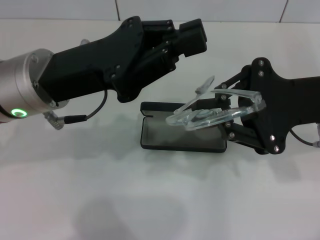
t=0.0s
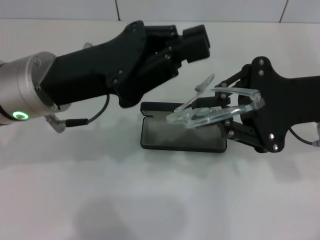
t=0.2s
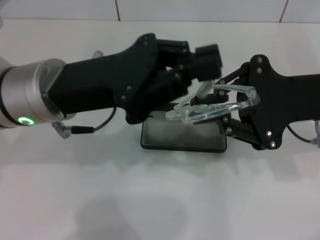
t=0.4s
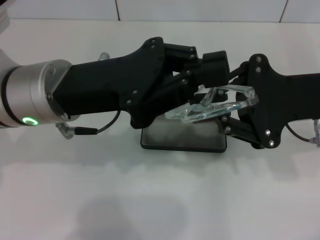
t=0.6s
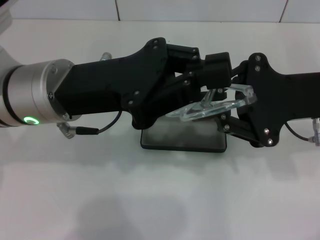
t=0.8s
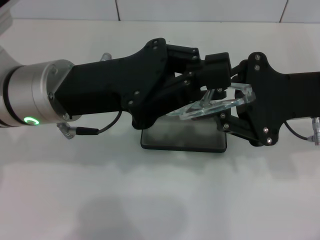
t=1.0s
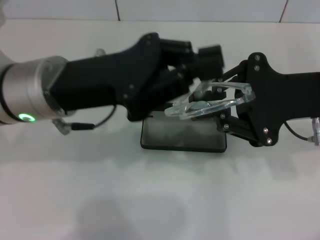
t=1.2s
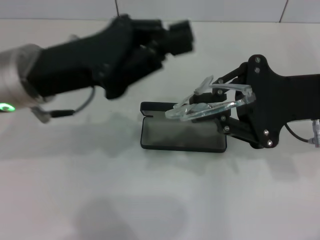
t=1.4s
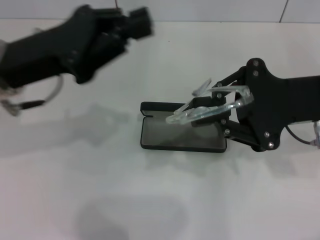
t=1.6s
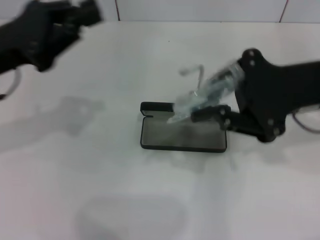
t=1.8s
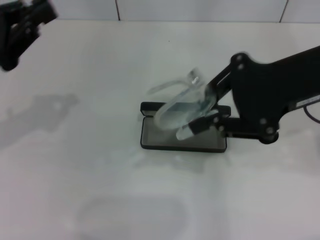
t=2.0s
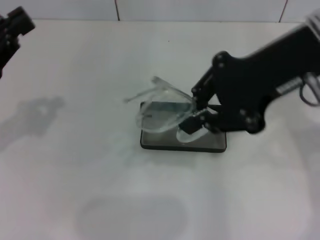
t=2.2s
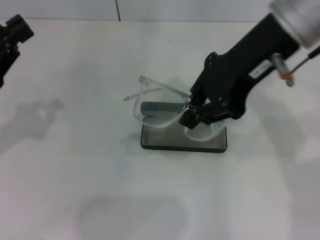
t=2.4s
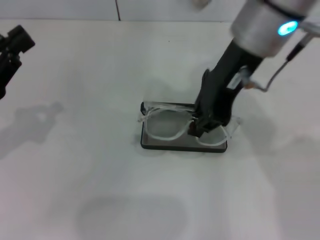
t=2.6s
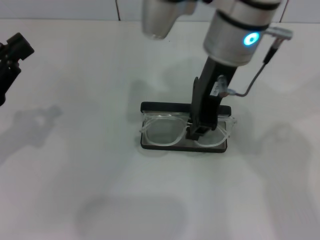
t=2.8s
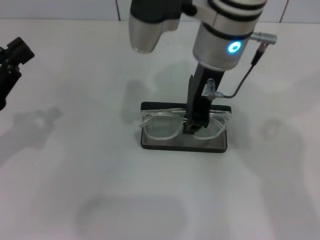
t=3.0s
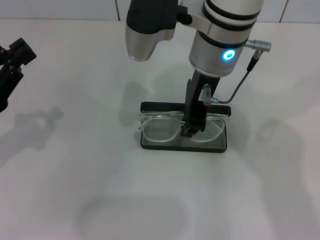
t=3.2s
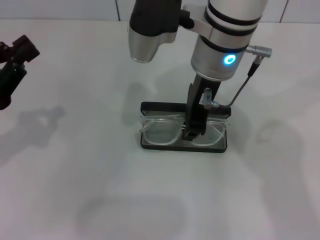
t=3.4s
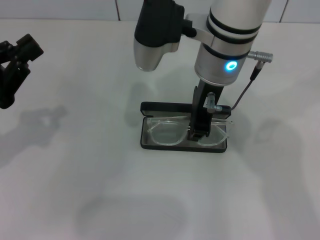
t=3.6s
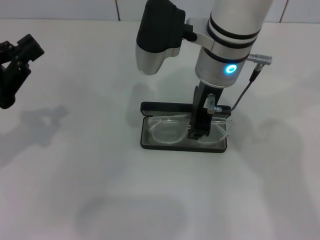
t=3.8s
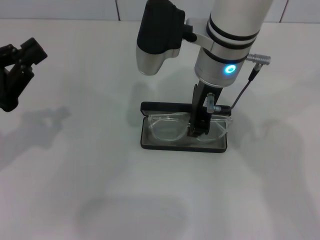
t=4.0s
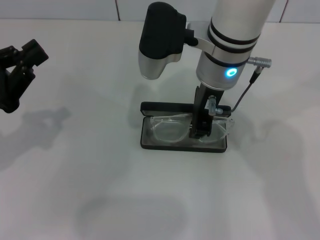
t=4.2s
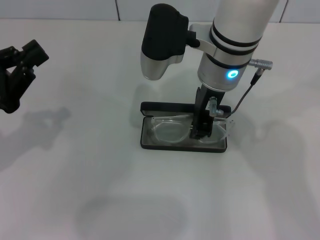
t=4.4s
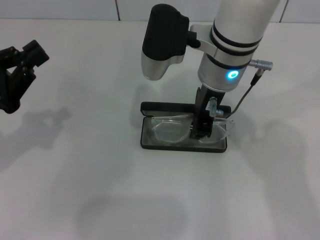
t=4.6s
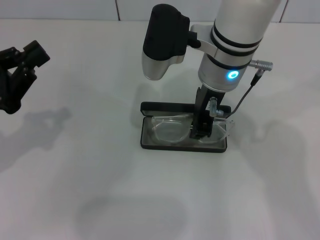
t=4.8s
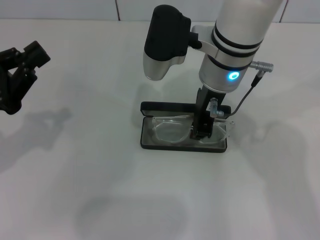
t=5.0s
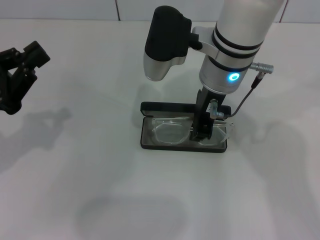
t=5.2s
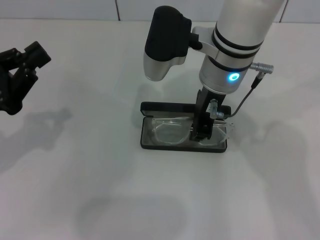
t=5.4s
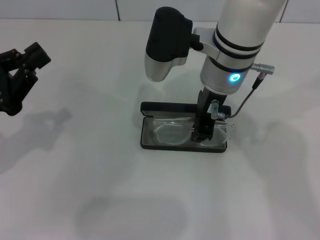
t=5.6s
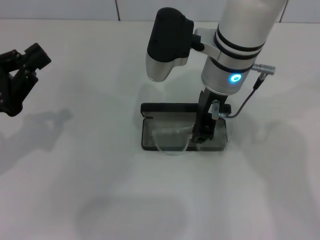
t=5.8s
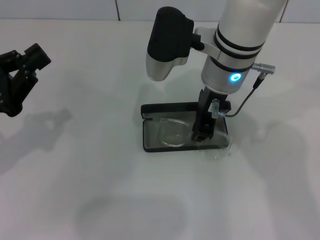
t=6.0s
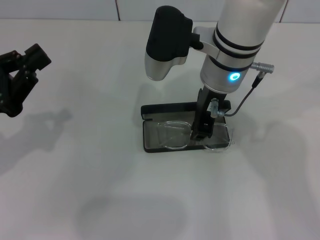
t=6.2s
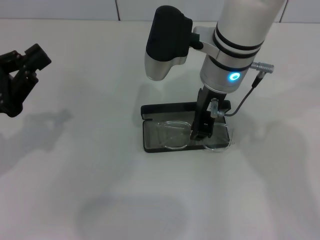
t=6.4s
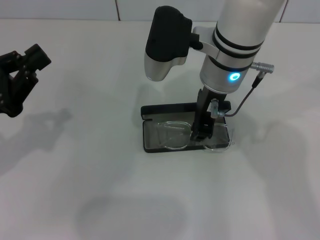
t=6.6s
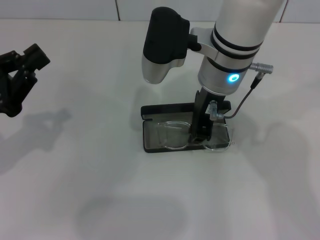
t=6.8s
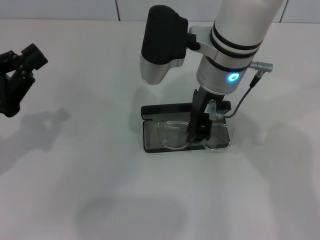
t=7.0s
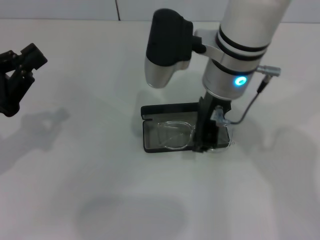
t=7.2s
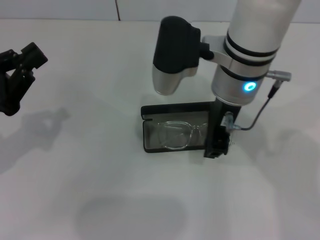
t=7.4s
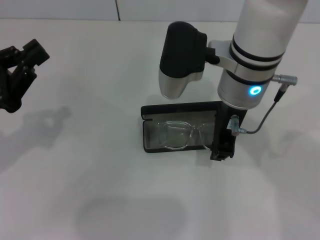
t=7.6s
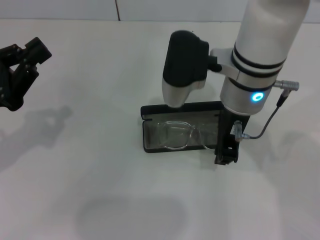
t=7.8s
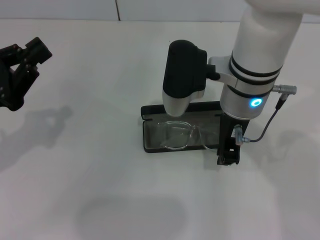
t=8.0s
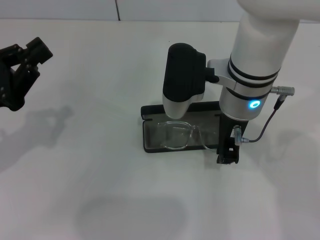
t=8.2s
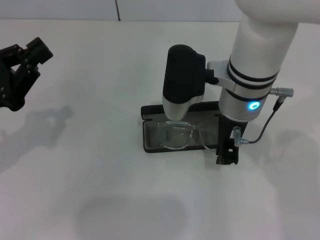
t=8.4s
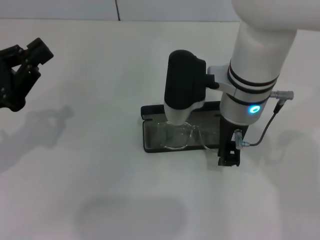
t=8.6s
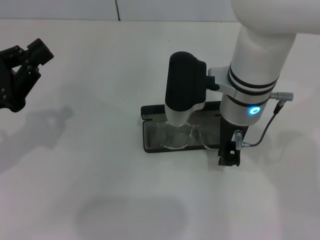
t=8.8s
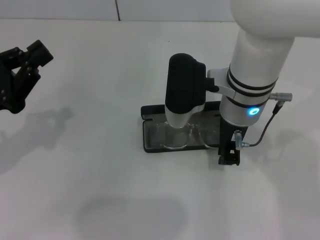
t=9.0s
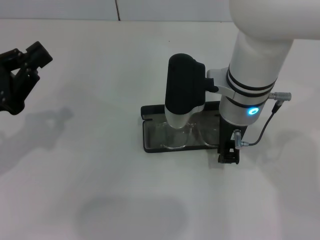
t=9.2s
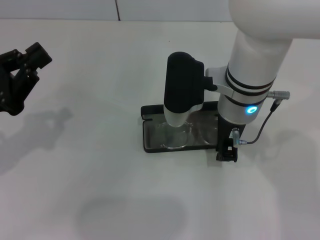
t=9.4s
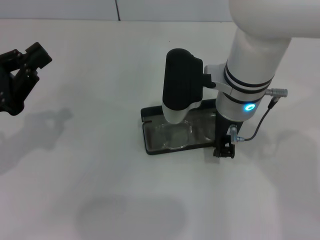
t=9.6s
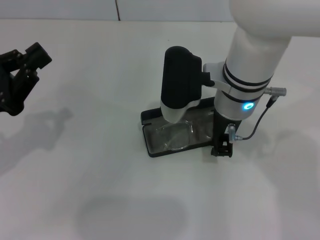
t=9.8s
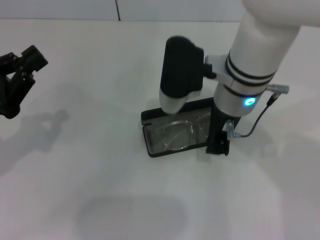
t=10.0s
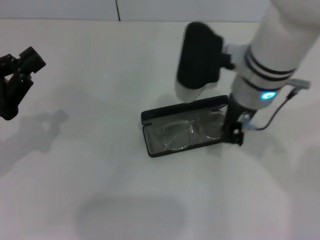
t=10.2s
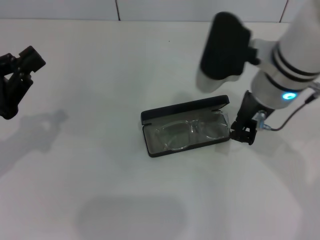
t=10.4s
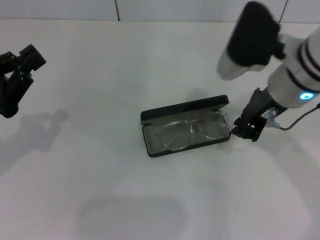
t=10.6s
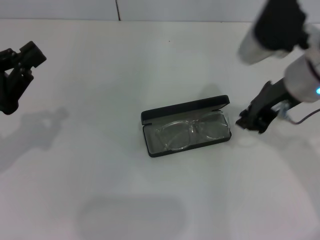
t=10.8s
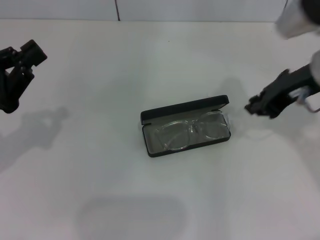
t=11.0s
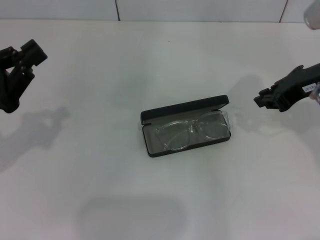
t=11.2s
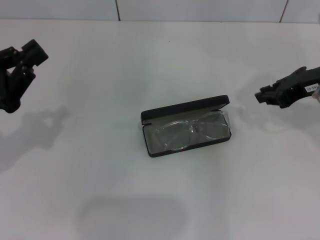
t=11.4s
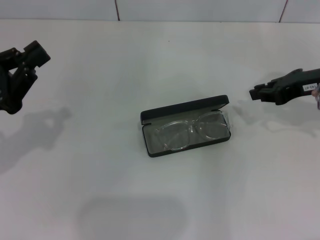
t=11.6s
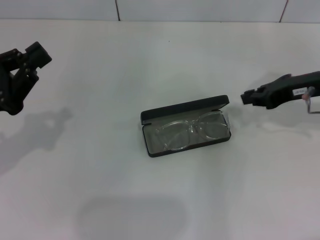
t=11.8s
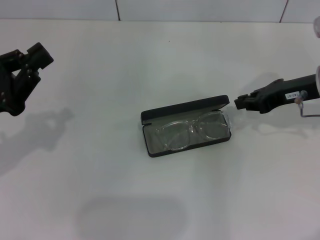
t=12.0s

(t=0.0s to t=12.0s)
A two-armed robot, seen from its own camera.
t=1.6s - t=3.0s: The right gripper goes about 15 cm to the left. The left gripper is displaced to the left, backward and downward by about 15 cm.
t=3.0s - t=4.4s: There are only small adjustments of the grippers.
t=4.4s - t=6.0s: Both grippers stay put.
t=6.0s - t=9.0s: The grippers stay close to where they were, moving slightly.
t=9.0s - t=10.4s: The right gripper moves some 5 cm.
t=10.4s - t=12.0s: The right gripper moves to the right, some 15 cm.

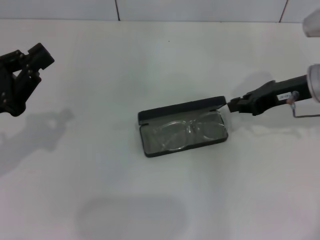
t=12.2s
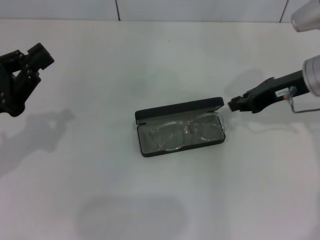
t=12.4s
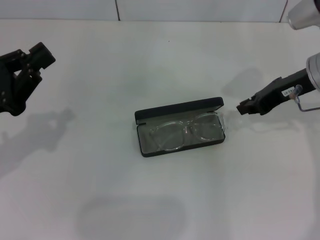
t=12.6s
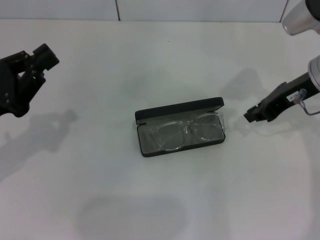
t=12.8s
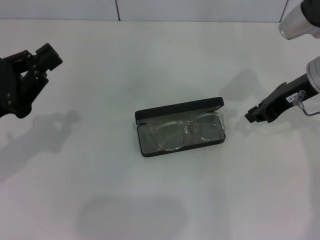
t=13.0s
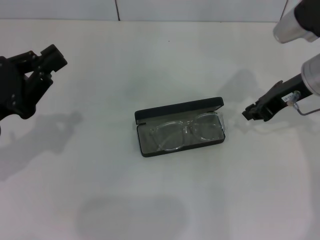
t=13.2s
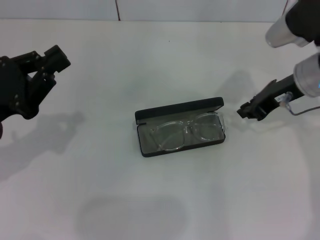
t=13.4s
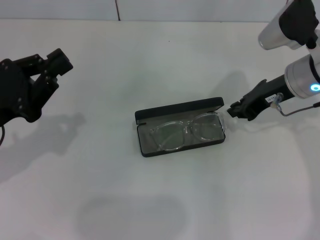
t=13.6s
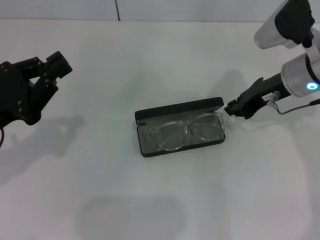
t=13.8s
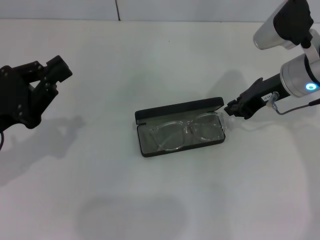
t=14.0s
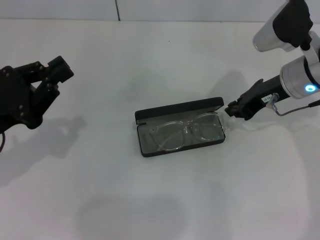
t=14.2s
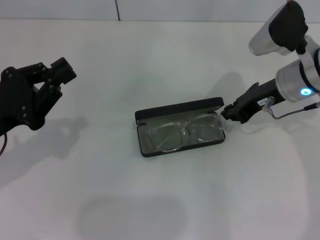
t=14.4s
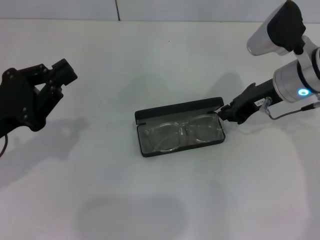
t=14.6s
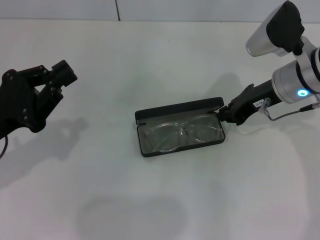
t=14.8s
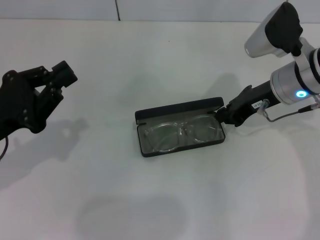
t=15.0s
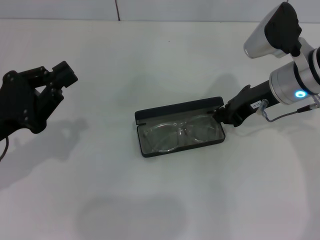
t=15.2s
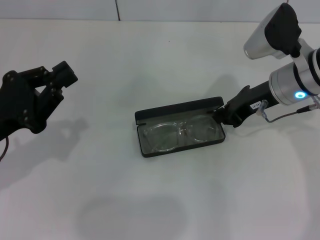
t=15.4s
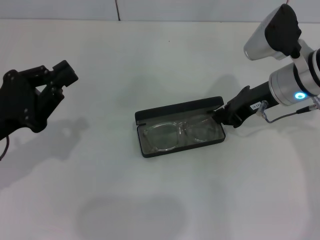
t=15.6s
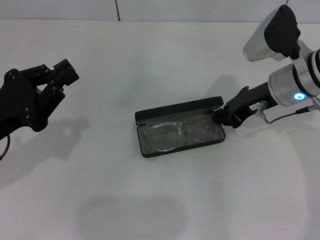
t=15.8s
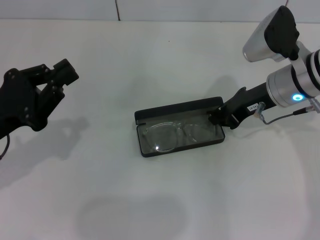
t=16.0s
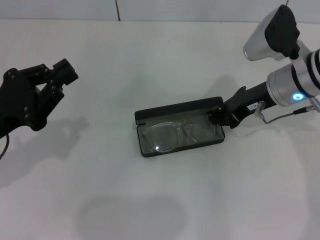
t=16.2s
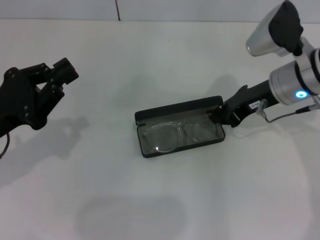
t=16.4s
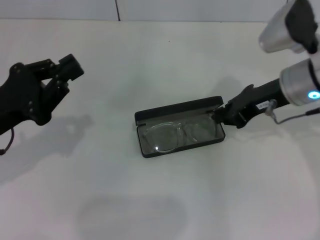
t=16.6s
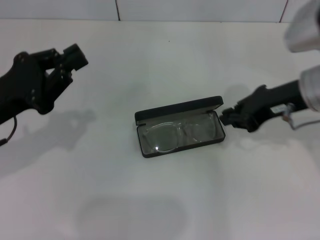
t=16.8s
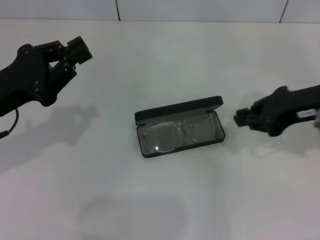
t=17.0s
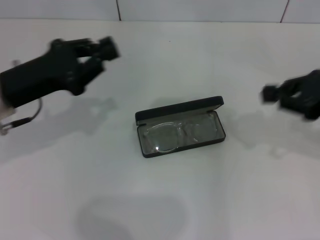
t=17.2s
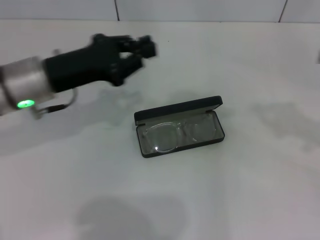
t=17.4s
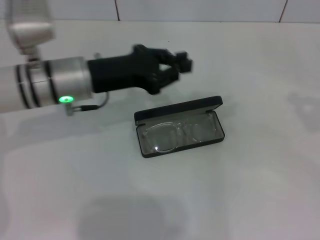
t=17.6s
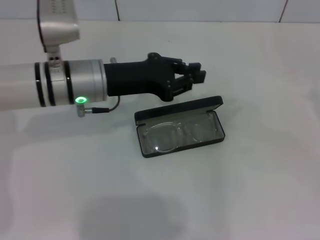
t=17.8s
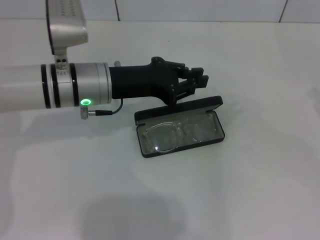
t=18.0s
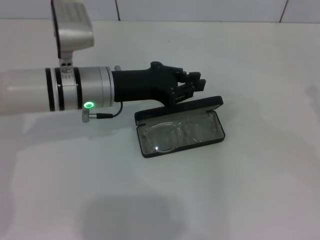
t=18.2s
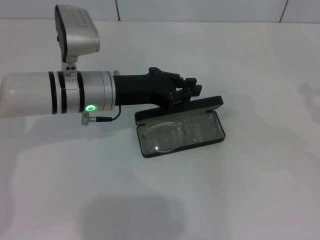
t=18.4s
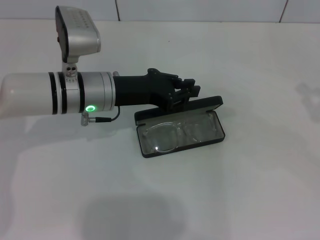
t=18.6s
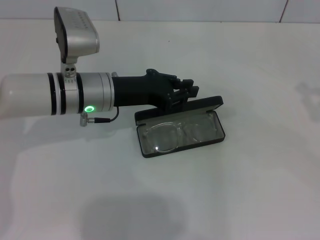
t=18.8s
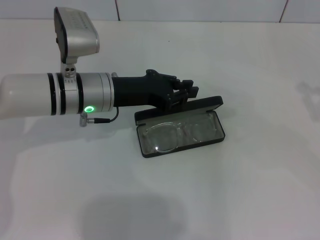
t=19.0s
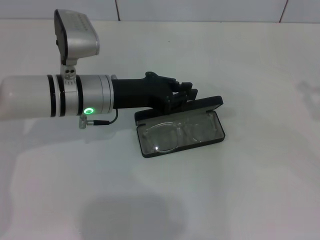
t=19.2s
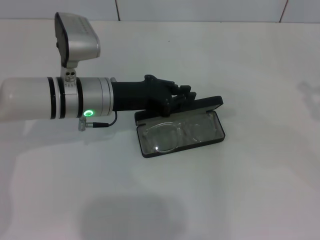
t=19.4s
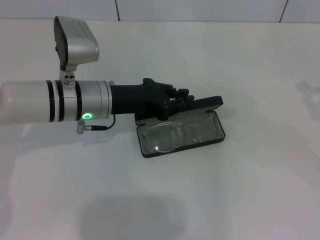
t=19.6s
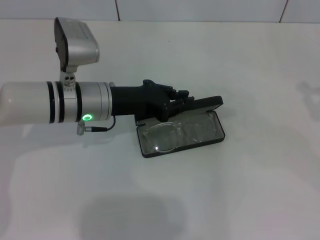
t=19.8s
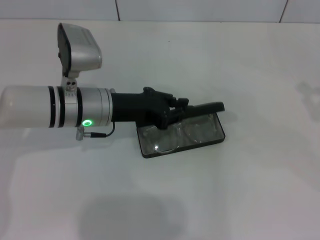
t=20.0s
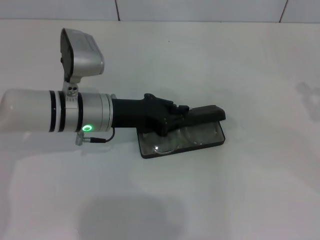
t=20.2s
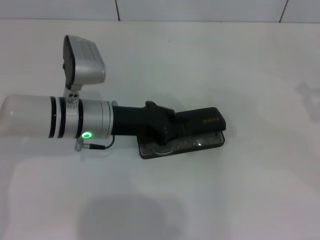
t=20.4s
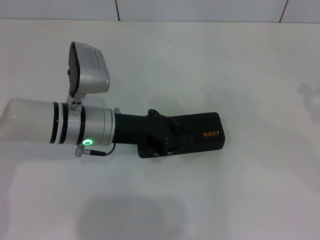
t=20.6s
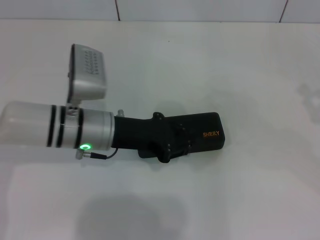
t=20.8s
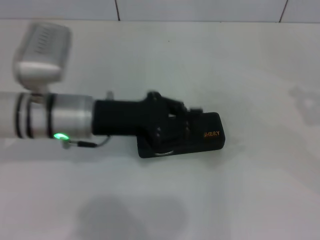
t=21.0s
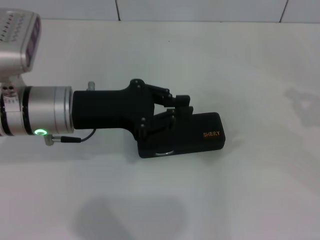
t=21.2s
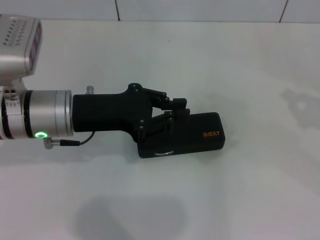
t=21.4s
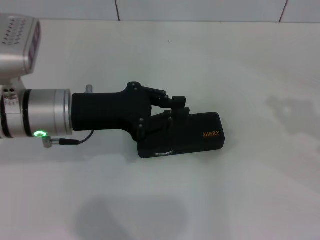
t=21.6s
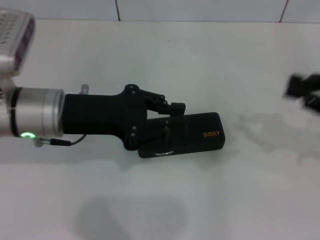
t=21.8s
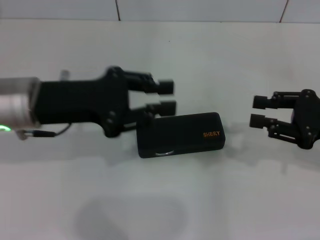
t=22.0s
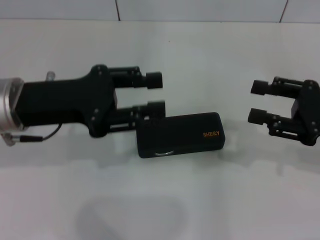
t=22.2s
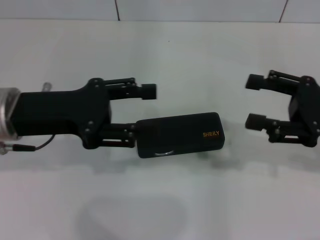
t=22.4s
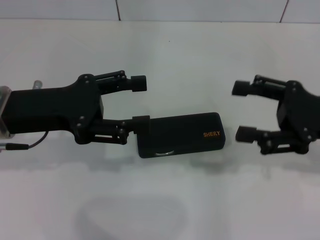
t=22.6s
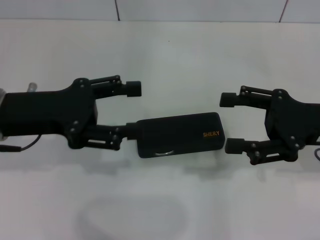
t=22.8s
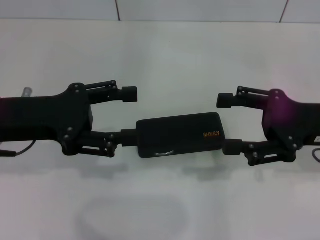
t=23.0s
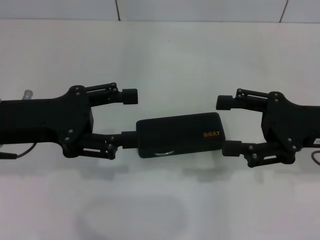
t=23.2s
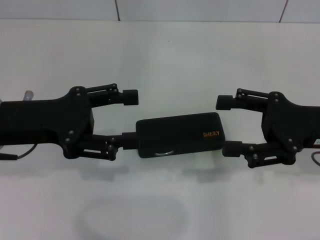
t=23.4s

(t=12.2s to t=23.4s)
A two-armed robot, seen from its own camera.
Step, t=12.2s - t=16.8s: Put the glasses into the case with your right hand.
Step, t=17.0s - t=21.2s: Close the glasses case with your left hand.
t=12.2s - t=15.4s: The grippers stay close to where they were, moving slightly.
t=15.4s - t=17.0s: The right gripper heads backward, upward and to the right, covering some 10 cm.
t=17.0s - t=18.6s: The right gripper travels to the right by some 15 cm; the left gripper shifts about 15 cm to the right and forward.
t=18.6s - t=20.2s: The grippers make only small movements.
t=20.2s - t=21.8s: The right gripper is displaced to the left by about 5 cm. The left gripper heads upward, covering about 5 cm.
t=21.8s - t=23.4s: The two grippers go some 5 cm to the left. The left gripper opens. The right gripper opens up.
